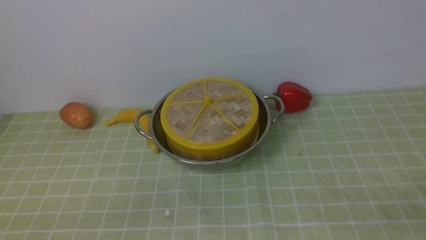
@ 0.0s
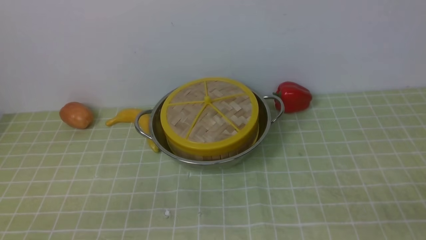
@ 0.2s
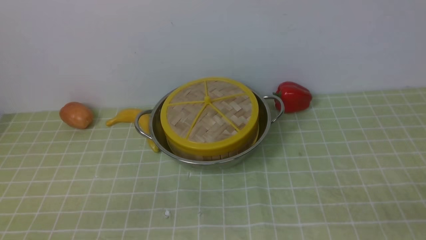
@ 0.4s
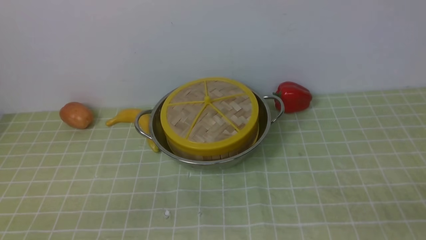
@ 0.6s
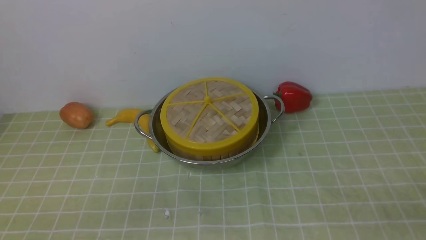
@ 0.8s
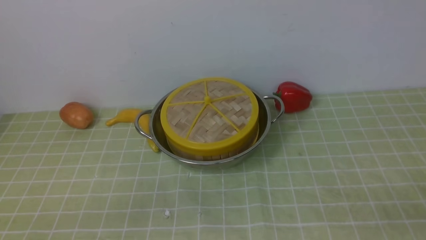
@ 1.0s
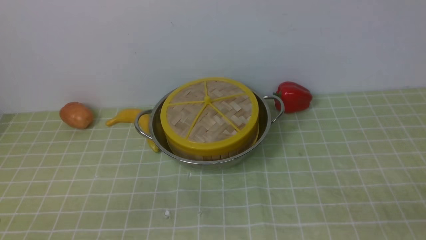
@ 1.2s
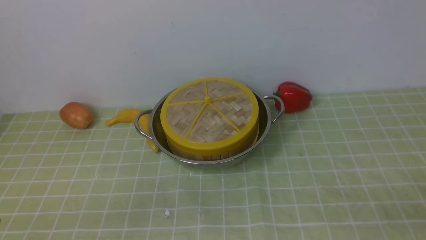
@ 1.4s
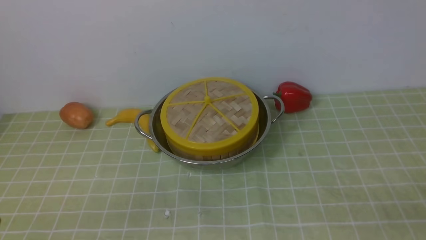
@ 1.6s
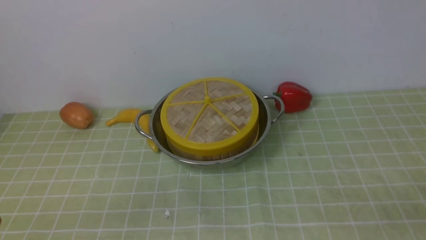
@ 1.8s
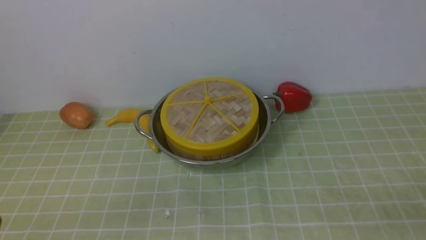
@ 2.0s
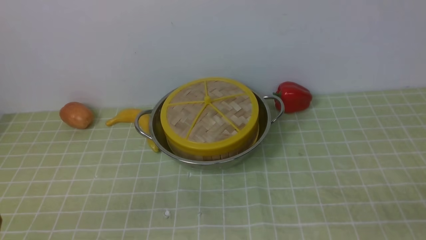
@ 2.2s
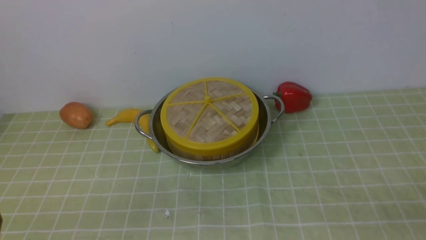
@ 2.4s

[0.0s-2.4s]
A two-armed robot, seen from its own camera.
Task of the whole recording: place the steamer in the pot on the green tablecloth, and put the lid on the steamer.
0.0s to 2.4s: Both grippers stay put.
